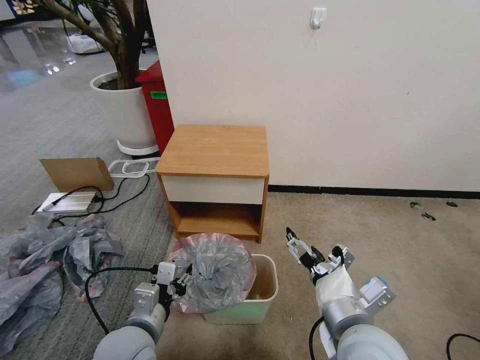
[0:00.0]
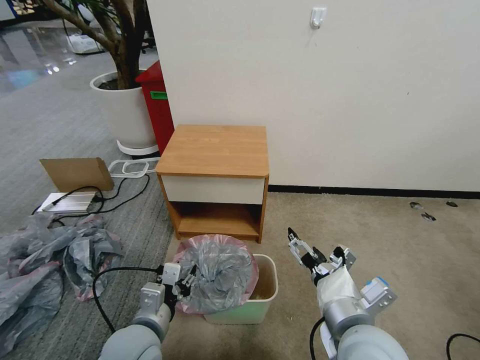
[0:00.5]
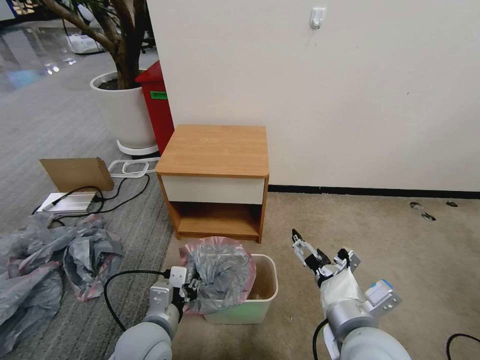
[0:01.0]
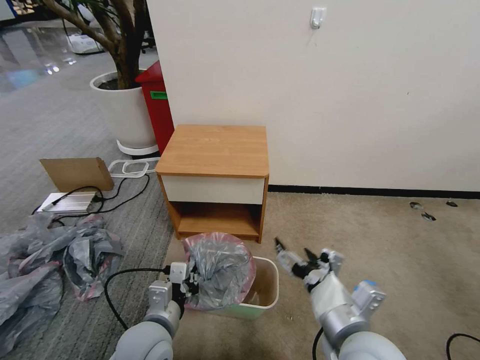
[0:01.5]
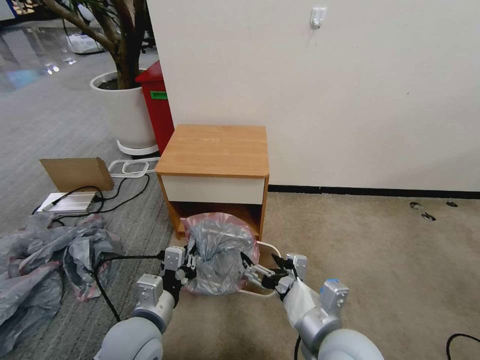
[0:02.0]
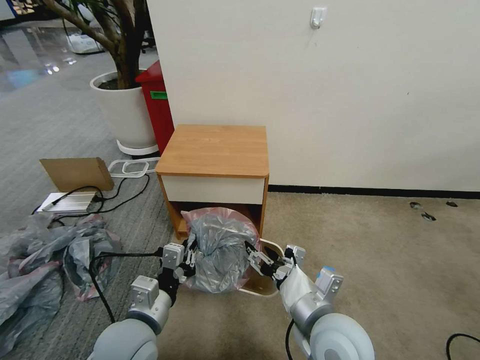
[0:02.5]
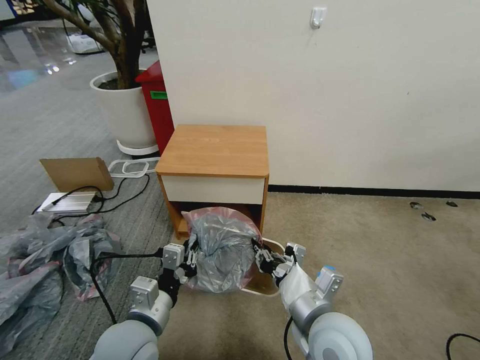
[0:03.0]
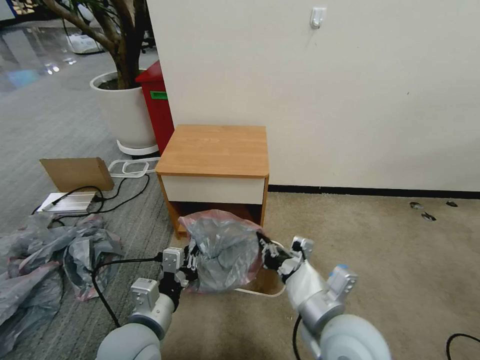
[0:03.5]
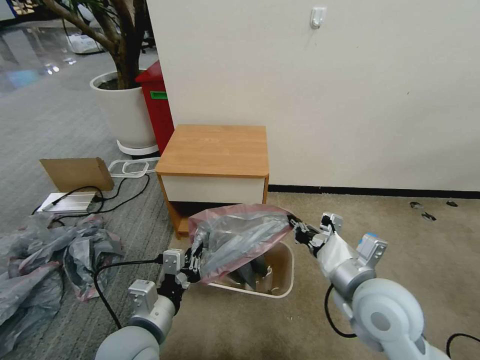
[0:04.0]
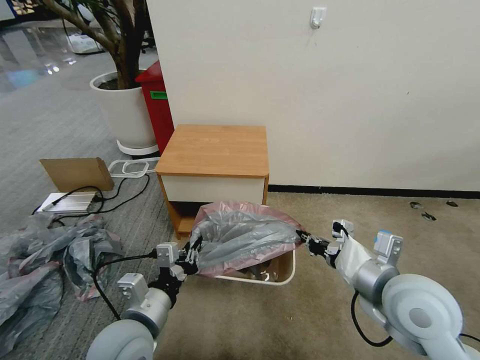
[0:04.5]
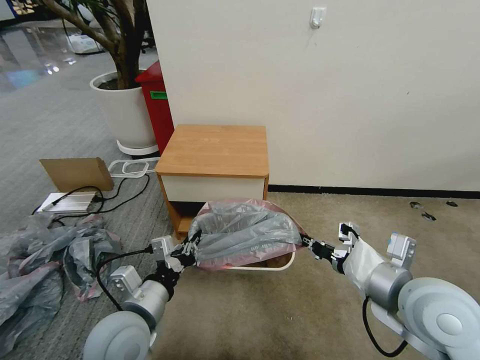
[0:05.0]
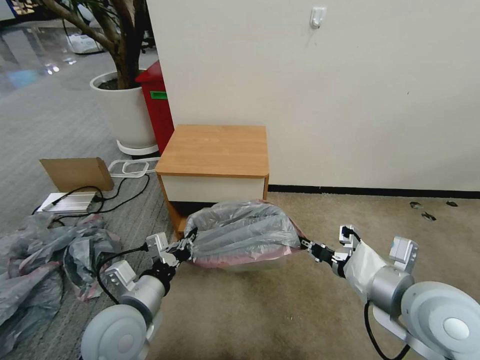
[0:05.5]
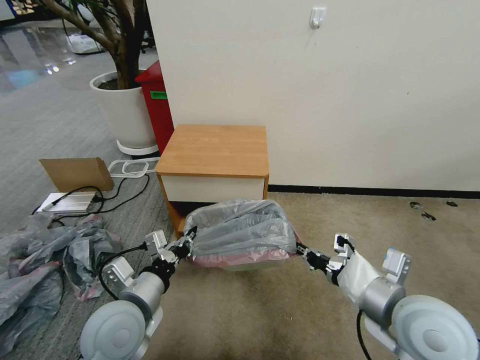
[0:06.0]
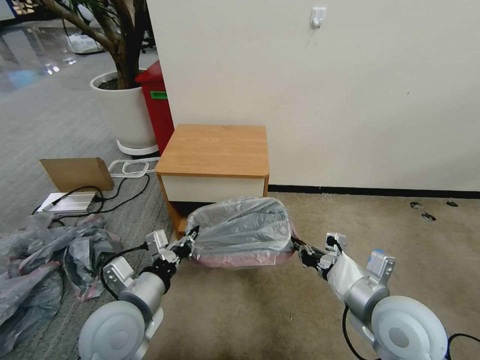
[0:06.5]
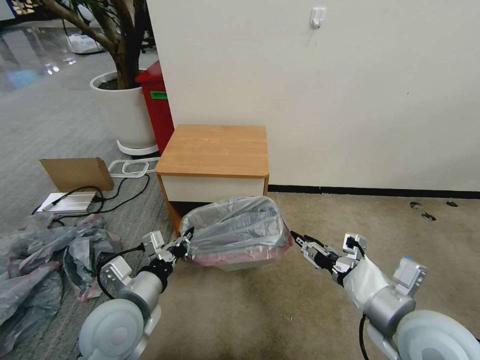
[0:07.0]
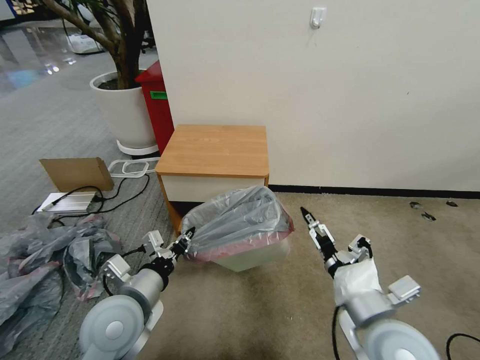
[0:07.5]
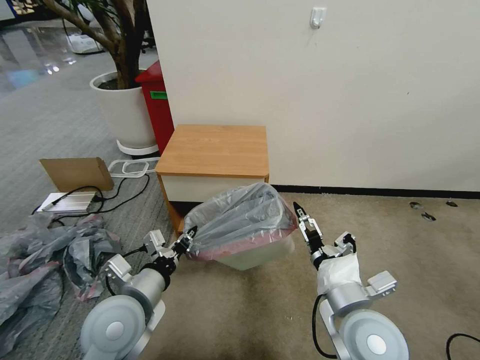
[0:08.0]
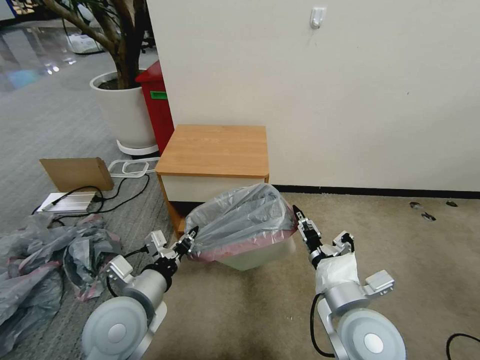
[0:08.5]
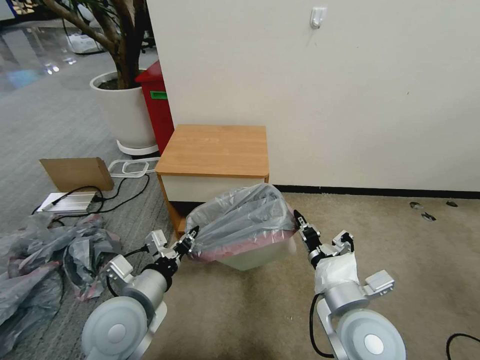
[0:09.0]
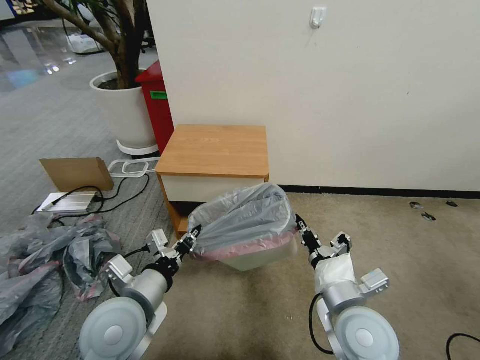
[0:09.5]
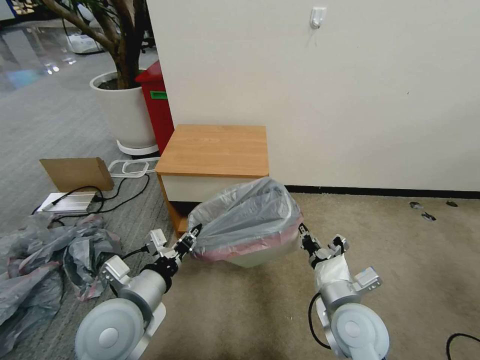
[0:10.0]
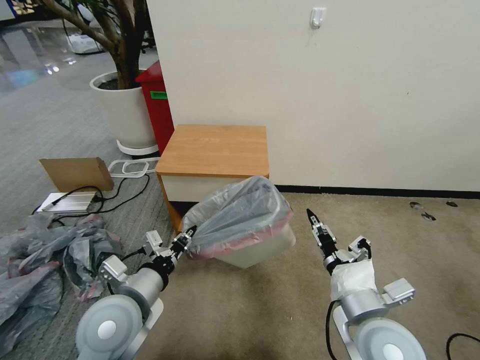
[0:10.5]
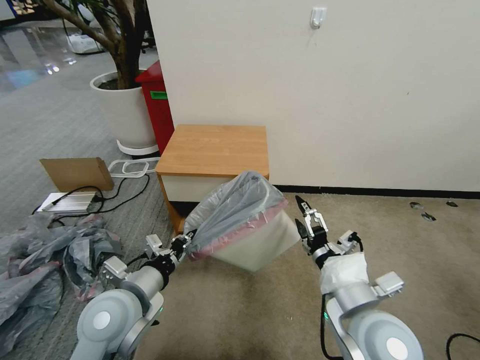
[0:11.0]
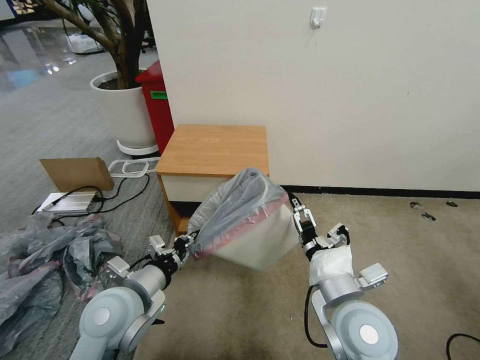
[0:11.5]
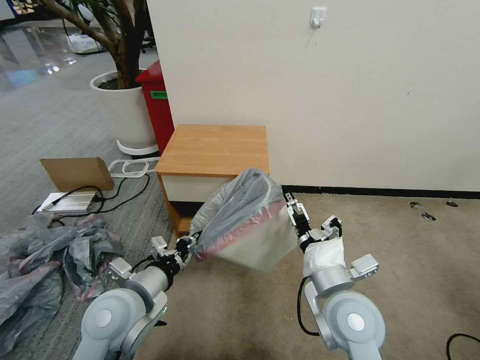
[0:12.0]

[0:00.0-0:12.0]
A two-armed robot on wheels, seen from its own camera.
Task of the whole recording: Pick up the garbage bag from the table and place it over the trash can.
0:00.0 to 0:02.0: The left gripper closes.
0:02.0 to 0:04.0: The right gripper moves to the right and forward, some 10 cm, and closes up.
0:04.0 to 0:06.0: The left gripper shifts by approximately 5 cm, while the right gripper ends up approximately 5 cm from where it was.
0:06.0 to 0:08.0: The right gripper moves to the left and downward, roughly 10 cm, and opens.
0:08.0 to 0:10.0: The right gripper goes approximately 5 cm downward, and closes up.
0:10.0 to 0:12.0: The right gripper heads upward, covering roughly 5 cm, and opens.

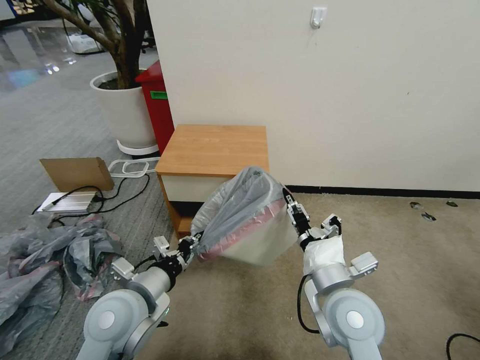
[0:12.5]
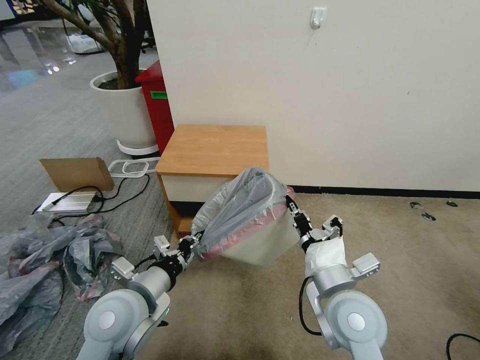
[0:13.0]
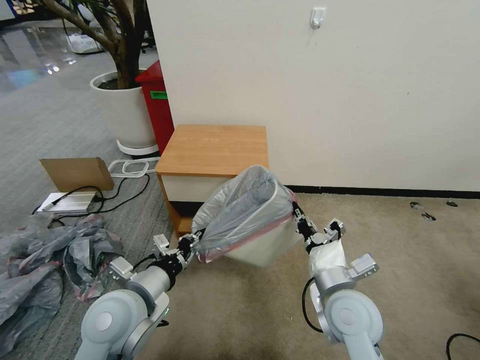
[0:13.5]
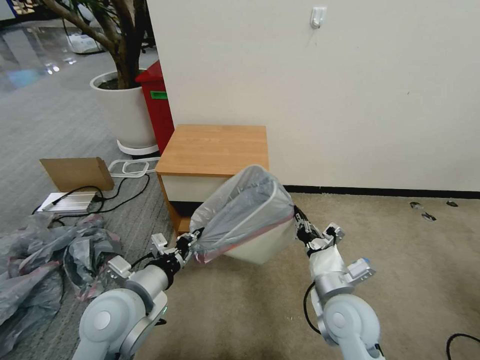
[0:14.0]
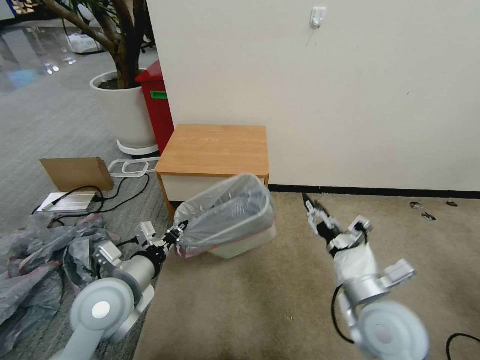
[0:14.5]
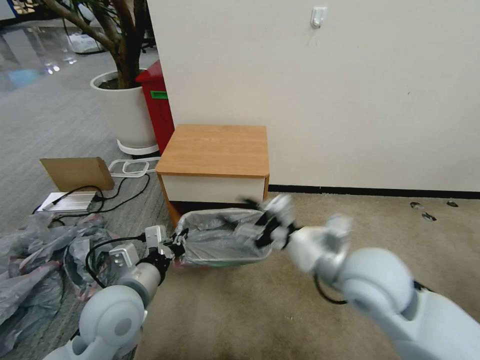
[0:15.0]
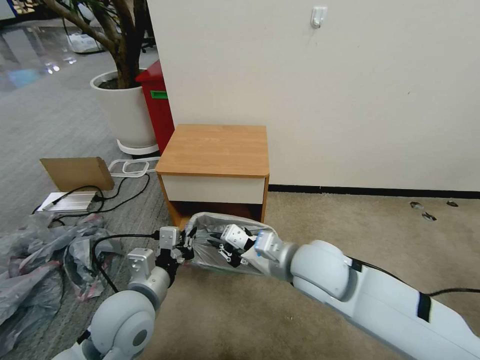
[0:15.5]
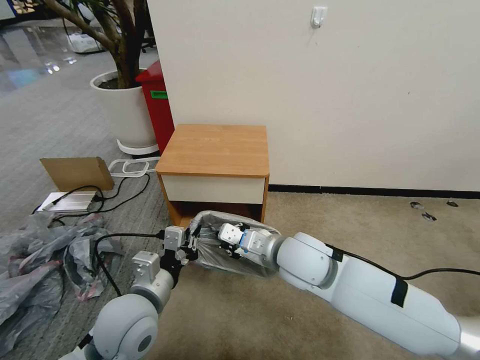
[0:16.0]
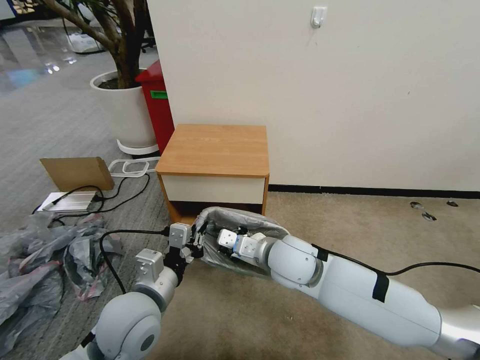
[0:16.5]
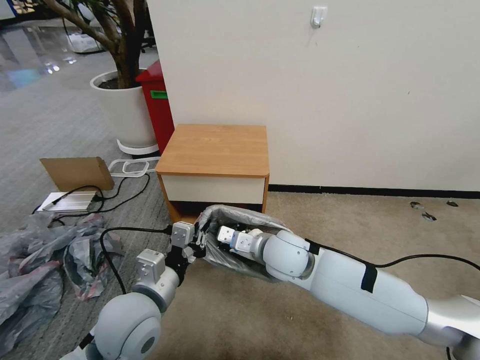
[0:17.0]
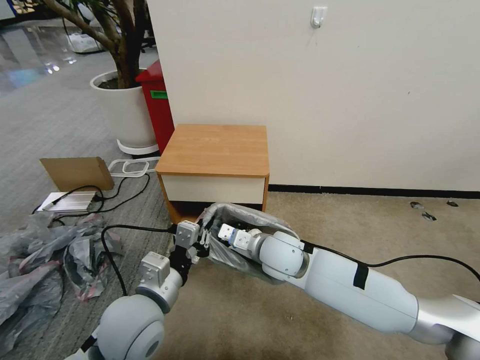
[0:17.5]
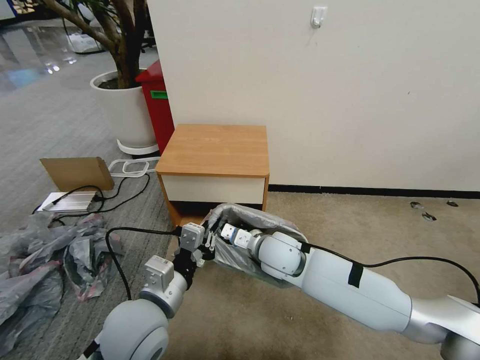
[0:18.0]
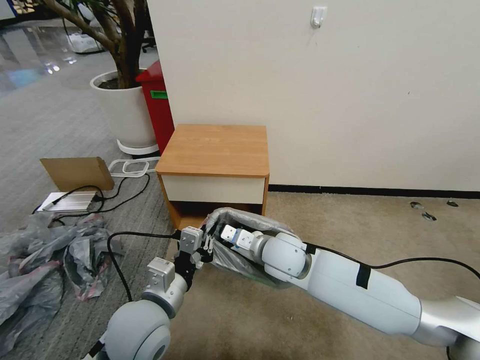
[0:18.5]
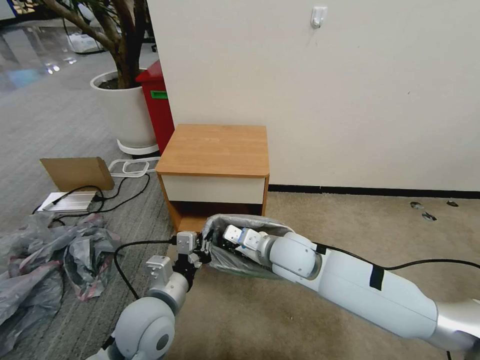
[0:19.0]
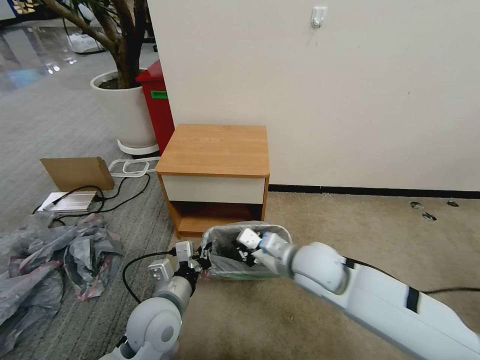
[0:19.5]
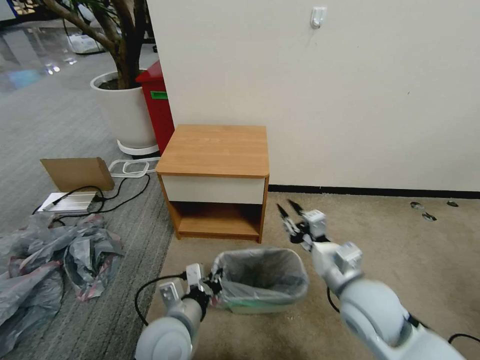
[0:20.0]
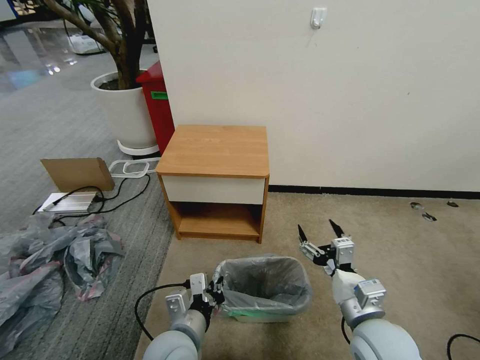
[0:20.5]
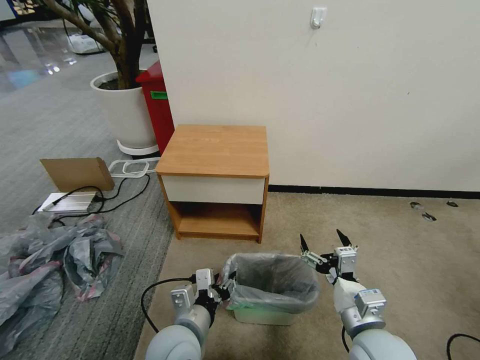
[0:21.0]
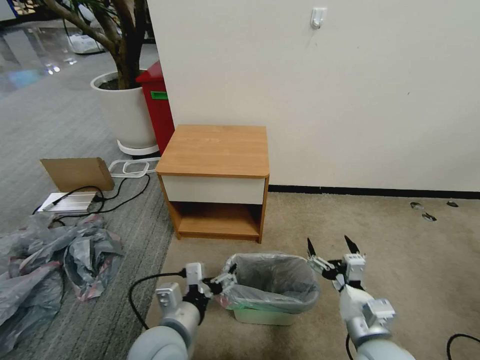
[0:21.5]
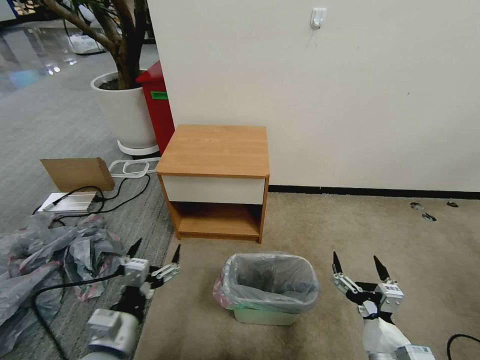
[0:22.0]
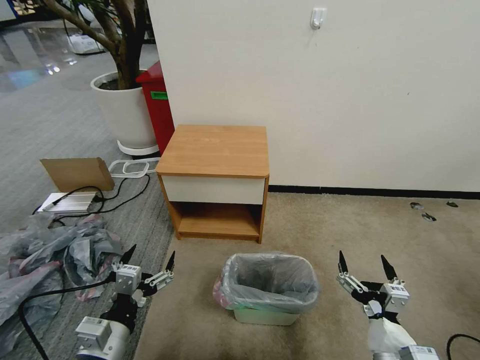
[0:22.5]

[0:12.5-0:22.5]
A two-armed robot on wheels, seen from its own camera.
Task of the whole recording: Pick up the garbage bag from the table and place it over the trash can.
0:12.5 to 0:14.5: The right gripper moves to the right, approximately 5 cm, and closes, then reopens.
0:14.5 to 0:16.5: The right gripper moves to the left and forward, roughly 20 cm, and closes up; the left gripper is displaced to the right by approximately 5 cm.
0:16.5 to 0:18.5: The grippers move only a little.
0:18.5 to 0:20.5: The right gripper shifts some 25 cm backward and to the right, and opens its fingers. Meanwhile the left gripper moves downward, about 10 cm.
0:20.5 to 0:22.5: The right gripper is displaced backward by about 10 cm. The left gripper heads to the left and backward, covering roughly 15 cm, and opens.
